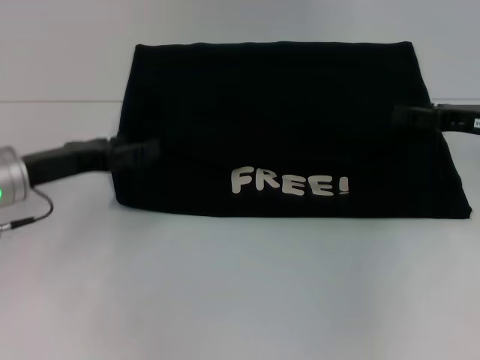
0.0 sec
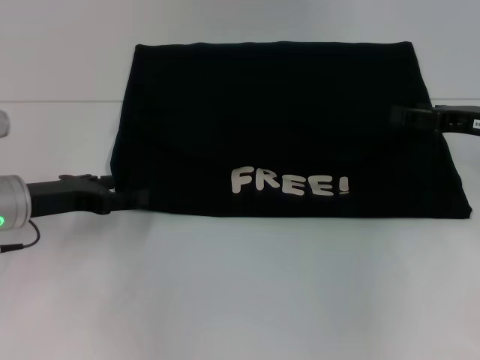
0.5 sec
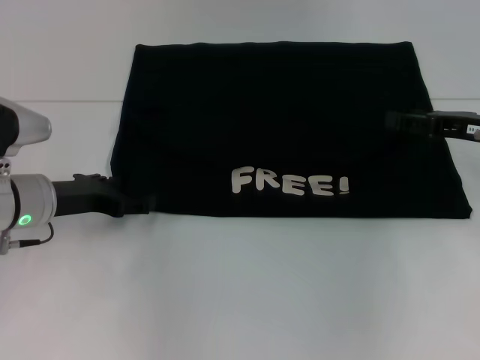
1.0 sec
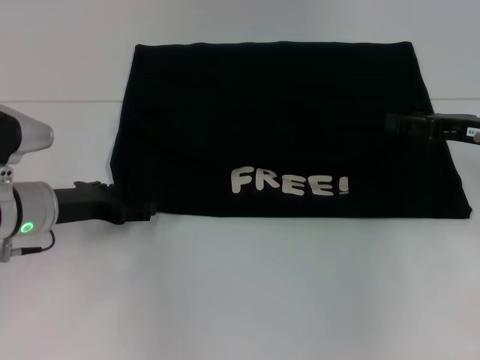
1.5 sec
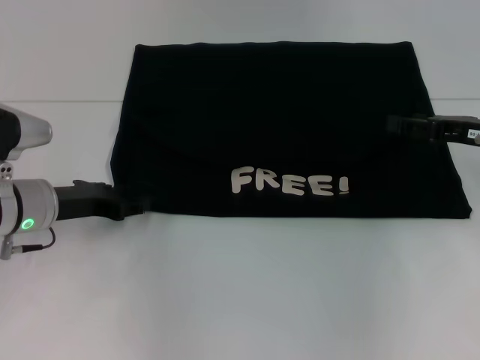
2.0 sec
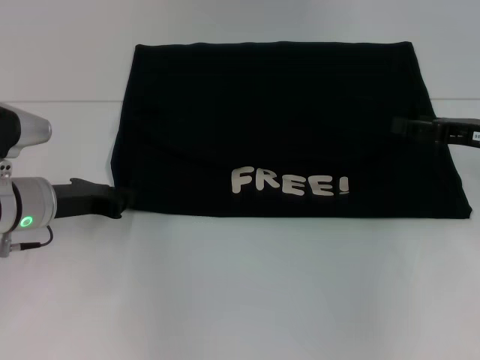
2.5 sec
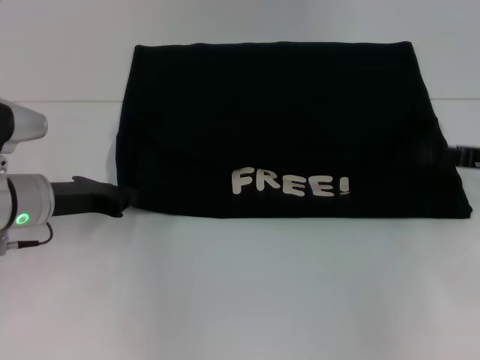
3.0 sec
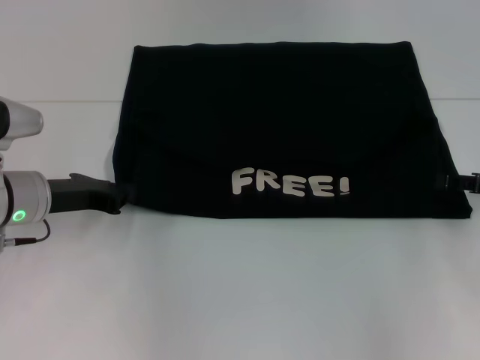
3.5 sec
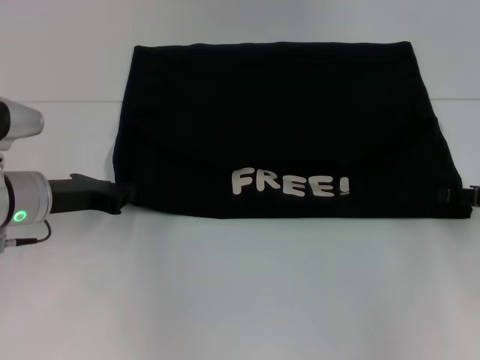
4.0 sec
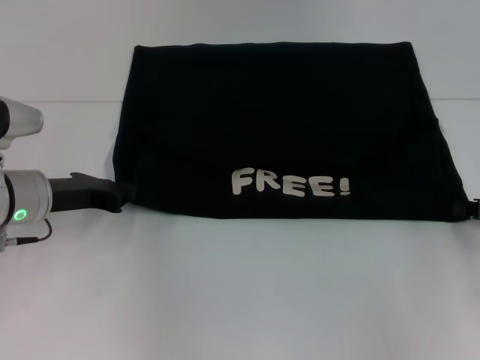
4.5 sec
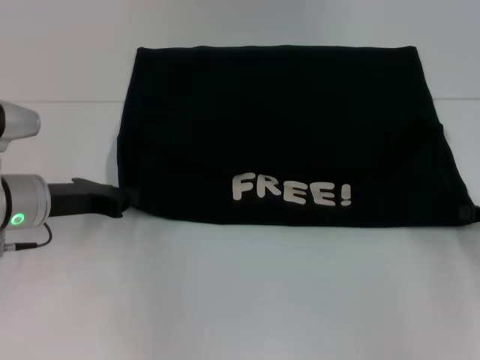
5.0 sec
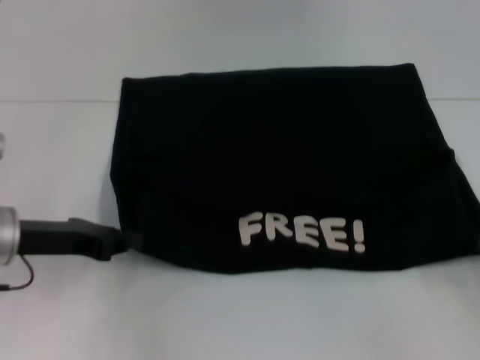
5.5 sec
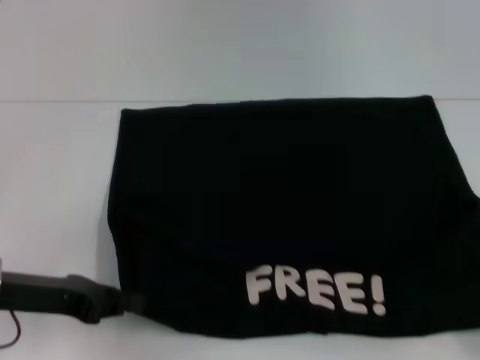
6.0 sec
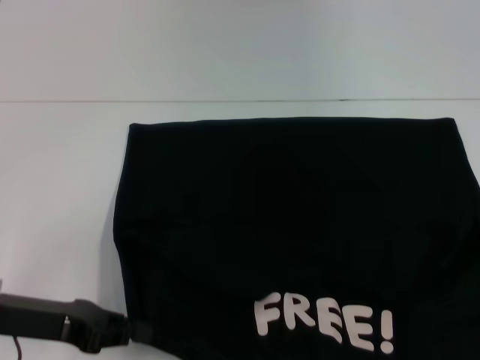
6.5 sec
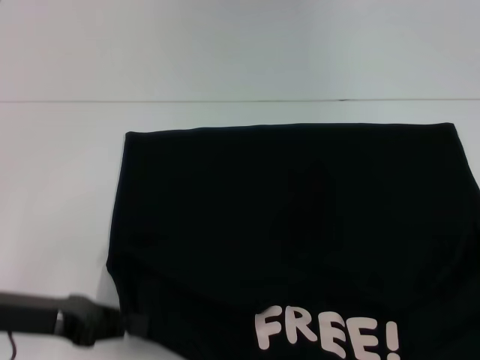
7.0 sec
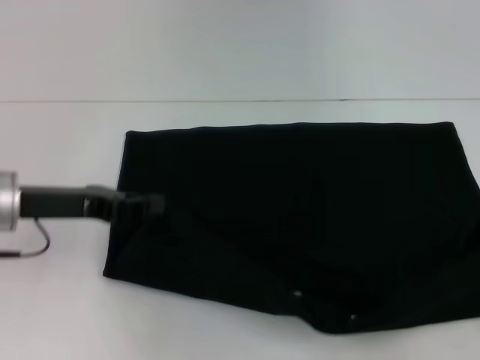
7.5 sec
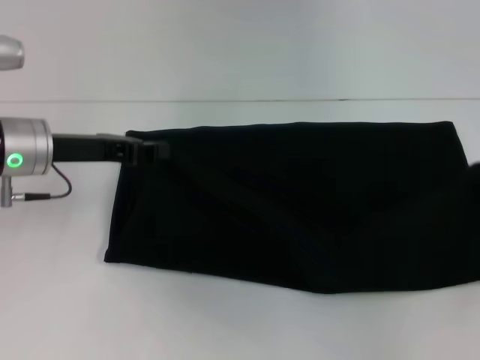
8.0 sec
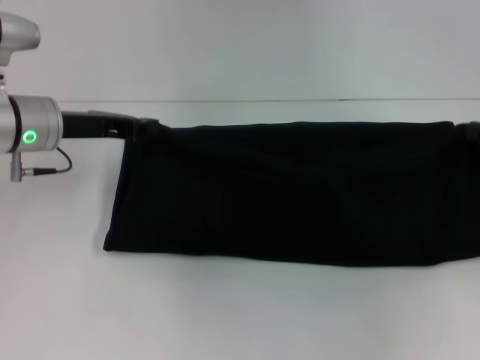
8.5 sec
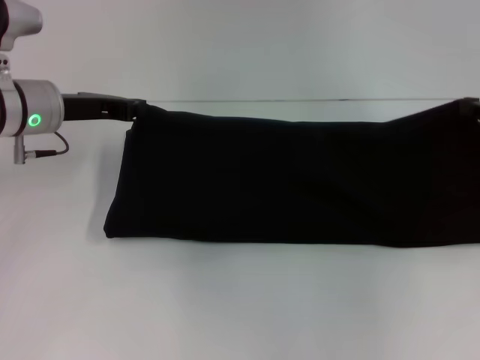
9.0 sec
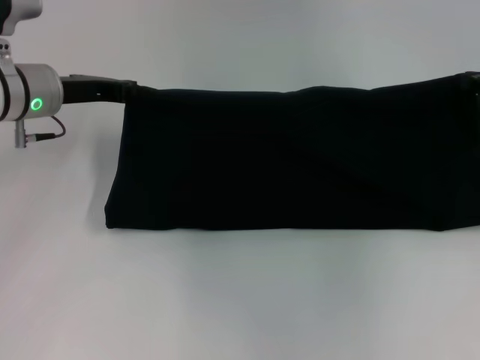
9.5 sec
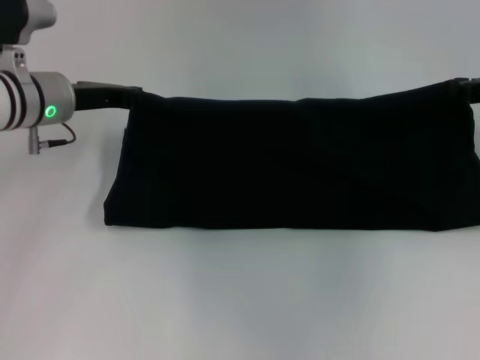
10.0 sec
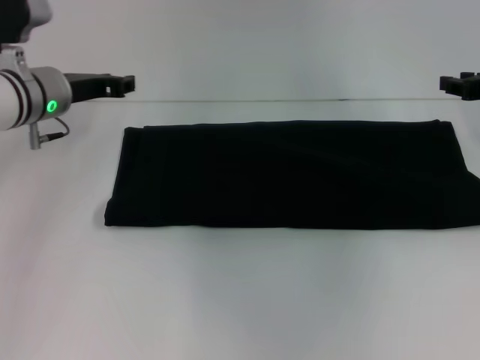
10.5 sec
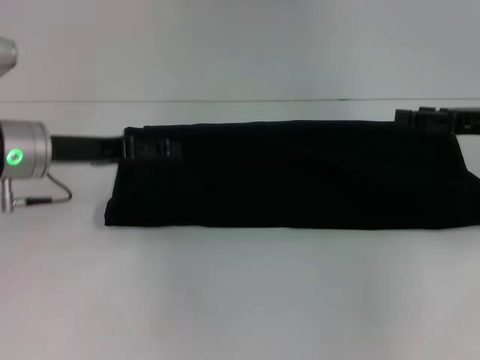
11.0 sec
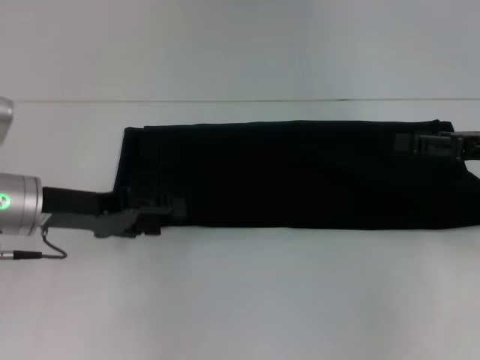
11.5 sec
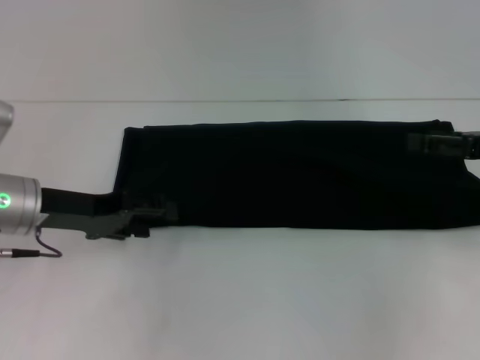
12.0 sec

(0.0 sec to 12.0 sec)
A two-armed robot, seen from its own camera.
Step, 0.0 sec - 6.5 sec: Pull the clothes with your left hand.
Step, 0.0 sec - 6.5 sec: Pull the clothes with your right hand.
Step, 7.0 sec - 10.0 sec: Fold the clothes with your right hand.
2.0 sec - 4.0 sec: The right gripper shifts by some 5 cm. Meanwhile the left gripper closes.
4.0 sec - 6.0 sec: The left gripper travels backward by about 10 cm, while the right gripper is displaced backward by about 15 cm, and closes up.
6.0 sec - 8.0 sec: The left gripper is displaced forward by about 10 cm. Meanwhile the right gripper shifts about 15 cm forward and upward.
8.0 sec - 10.0 sec: The left gripper shifts some 5 cm forward. The right gripper moves forward and to the left, approximately 15 cm.
10.0 sec - 12.0 sec: The grippers both shift backward by about 10 cm. The right gripper opens up; the left gripper opens its fingers.

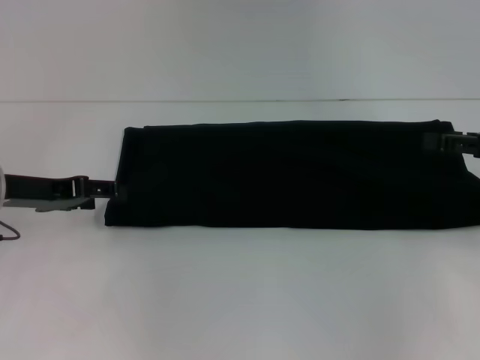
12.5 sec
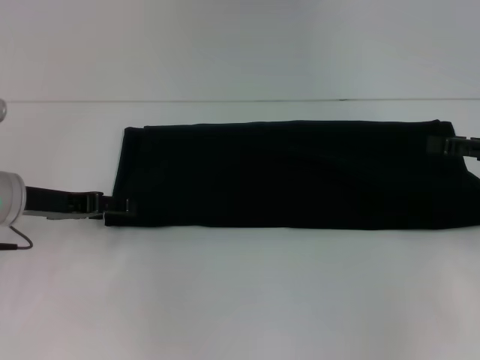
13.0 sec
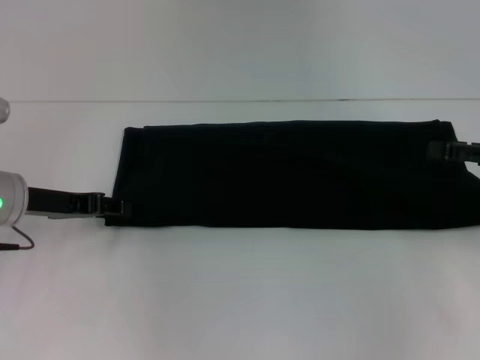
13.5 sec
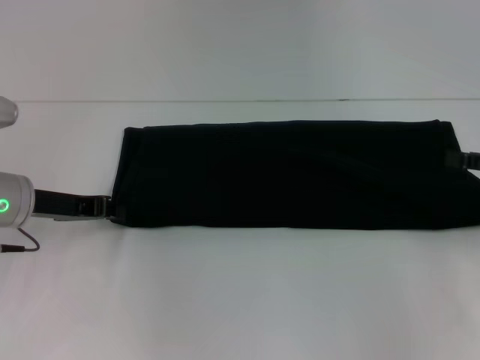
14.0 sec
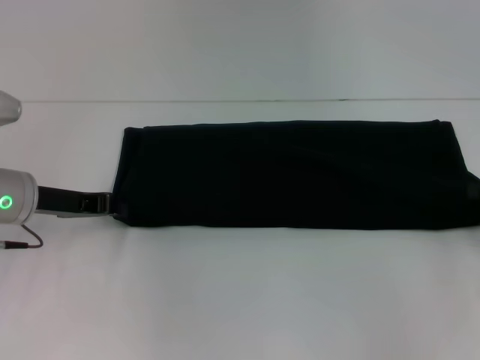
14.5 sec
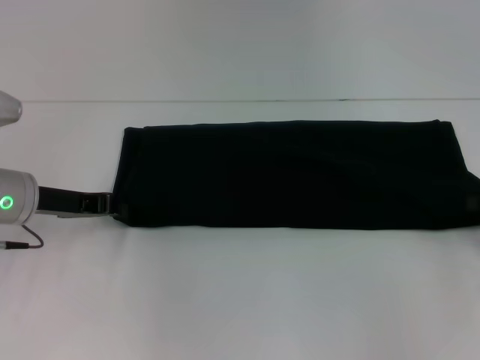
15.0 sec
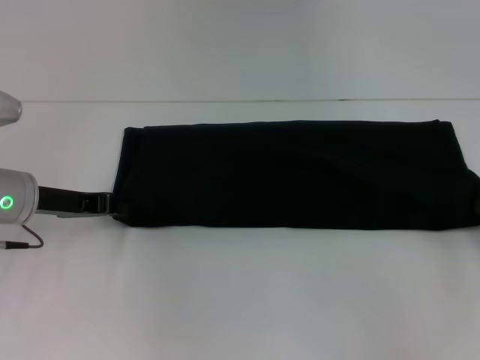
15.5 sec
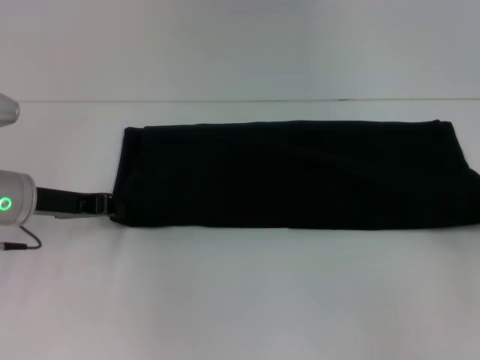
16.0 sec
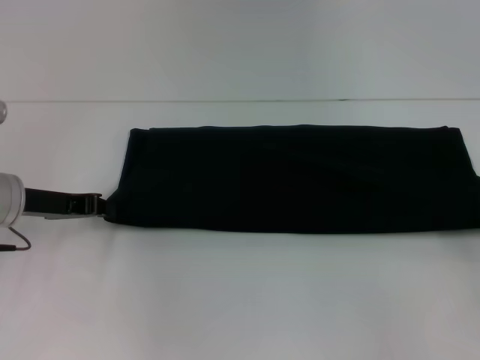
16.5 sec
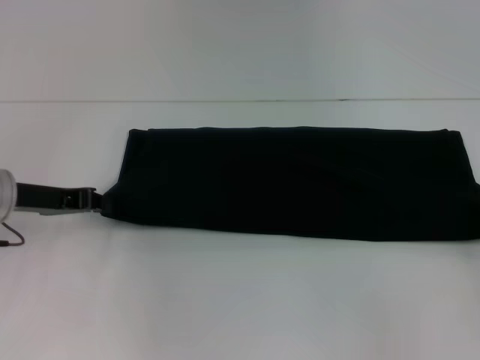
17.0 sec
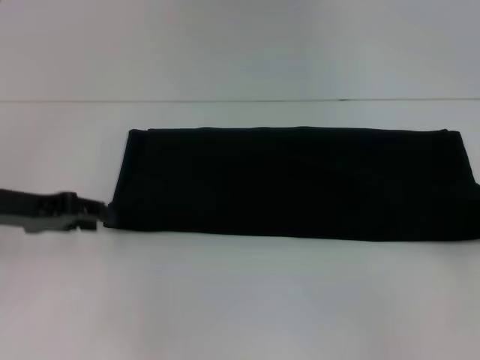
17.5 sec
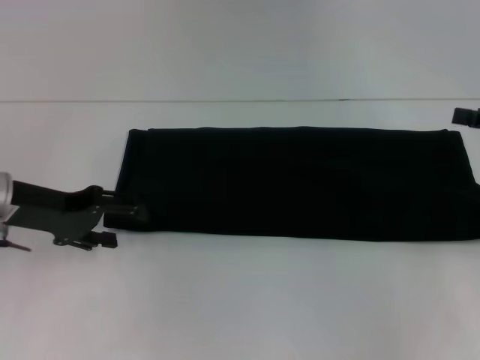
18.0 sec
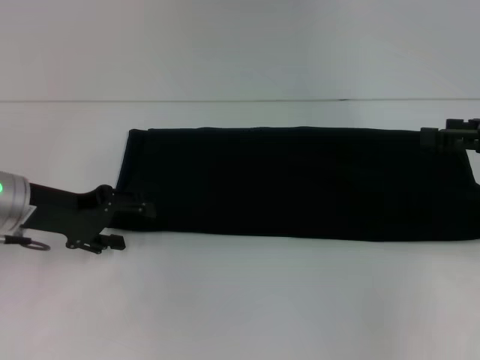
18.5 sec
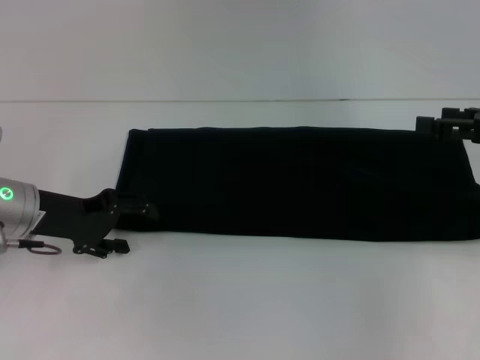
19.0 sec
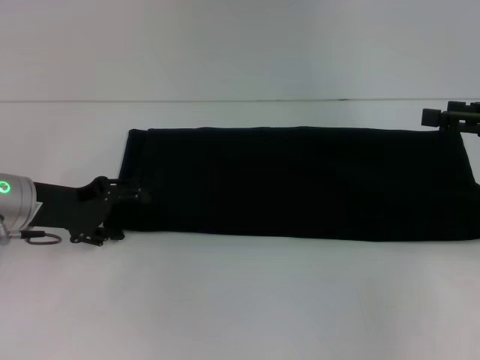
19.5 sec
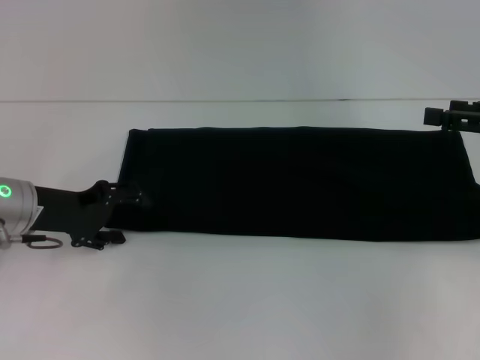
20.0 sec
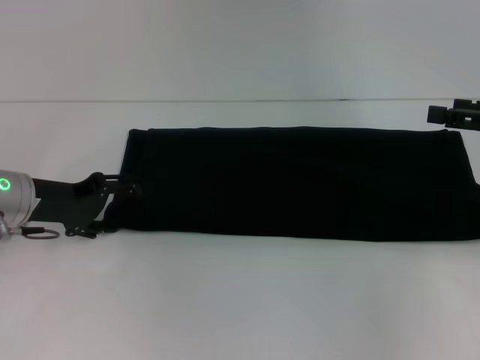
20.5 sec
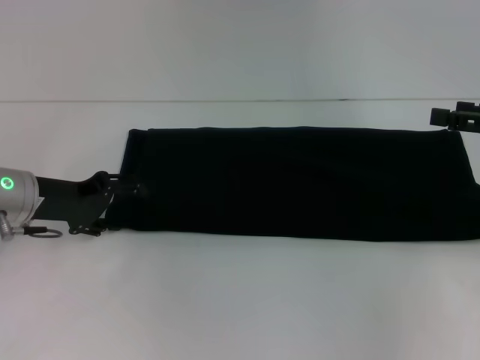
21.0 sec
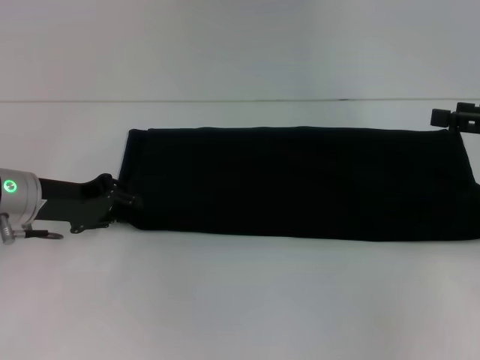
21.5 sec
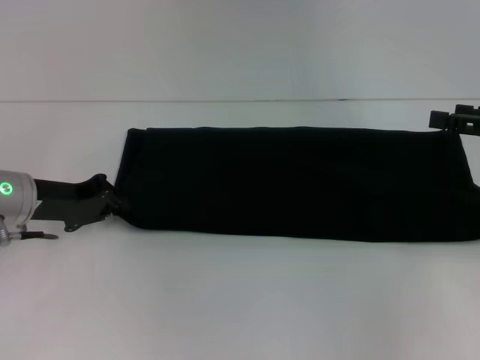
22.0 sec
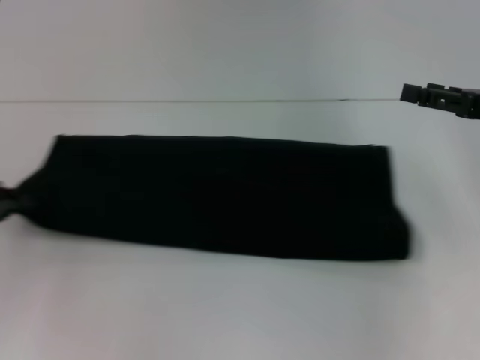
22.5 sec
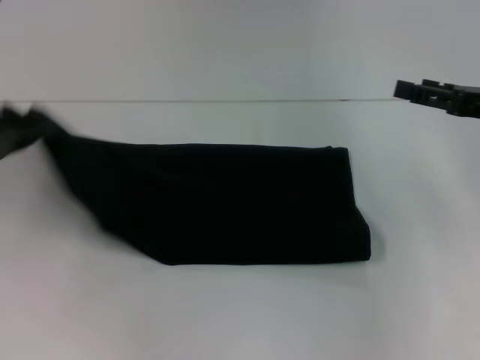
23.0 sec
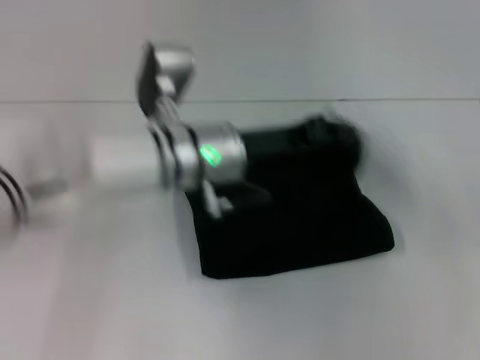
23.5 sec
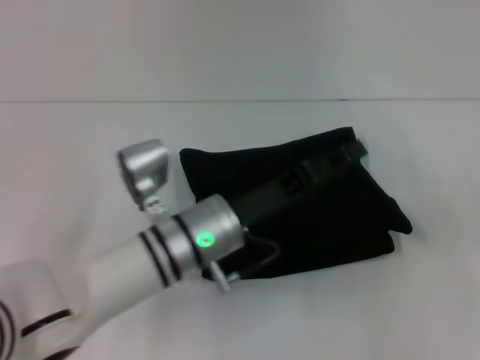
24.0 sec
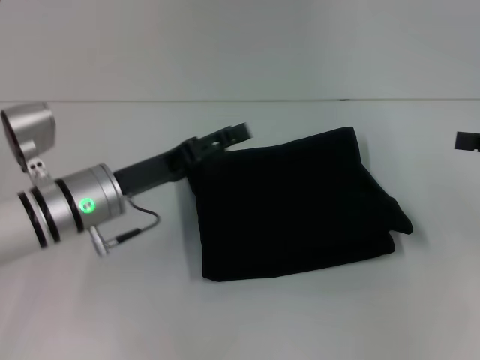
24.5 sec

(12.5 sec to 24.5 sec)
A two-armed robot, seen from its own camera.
Step, 12.5 sec - 23.5 sec: Fold the clothes with your left hand.
12.5 sec - 14.5 sec: The left gripper closes its fingers.
14.5 sec - 16.5 sec: The right gripper closes up.
16.5 sec - 18.5 sec: The right gripper is displaced upward, to the left and forward by approximately 10 cm, and opens its fingers. The left gripper opens its fingers.
18.5 sec - 20.5 sec: The grippers stay close to where they were, moving slightly.
20.5 sec - 22.5 sec: The left gripper is displaced to the left and backward by about 10 cm, and closes up.
22.5 sec - 24.5 sec: The right gripper moves to the right, some 5 cm. Meanwhile the left gripper shifts approximately 20 cm to the right, and opens its fingers.

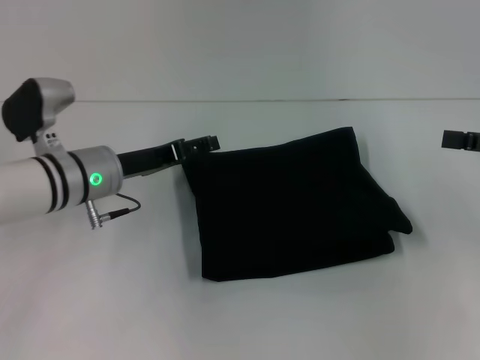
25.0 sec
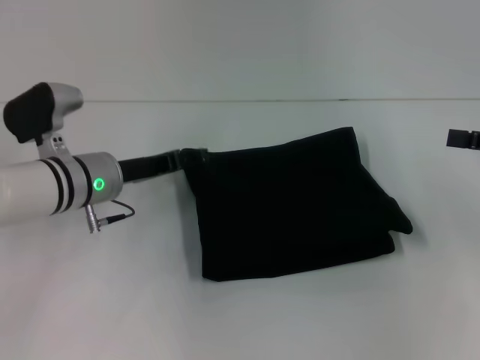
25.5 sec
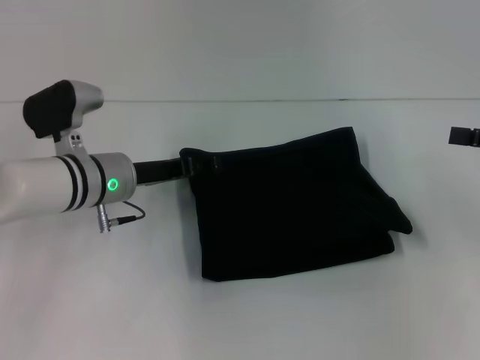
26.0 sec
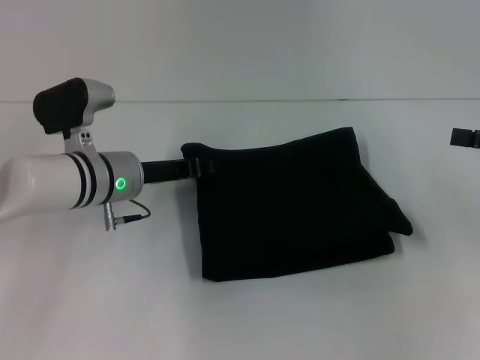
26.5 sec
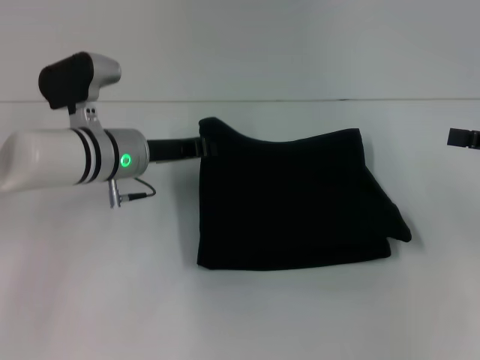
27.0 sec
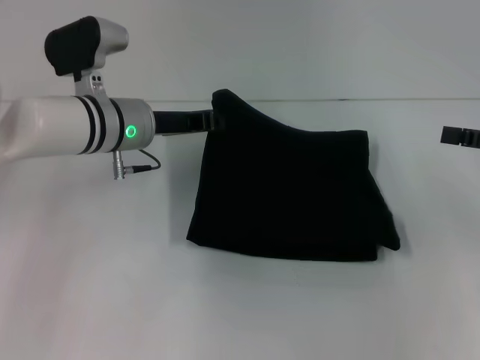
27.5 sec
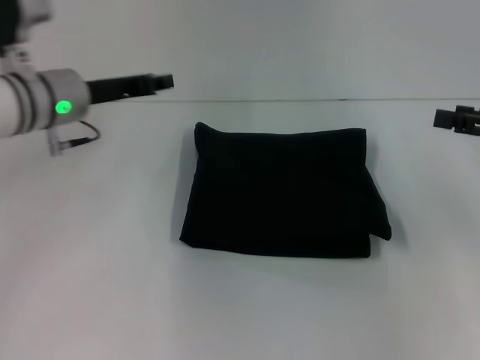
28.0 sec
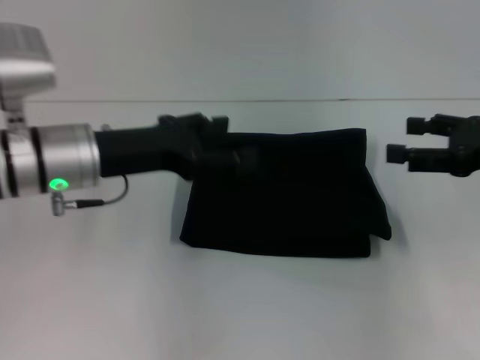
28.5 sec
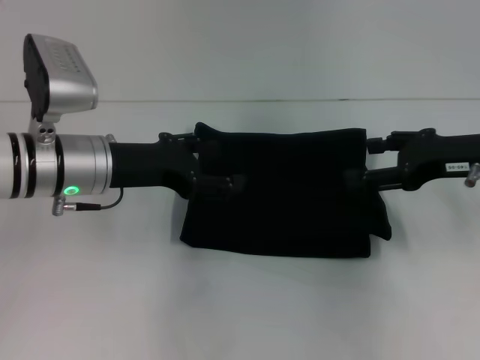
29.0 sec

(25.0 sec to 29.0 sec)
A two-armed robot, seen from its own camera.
25.0 sec - 27.0 sec: The left gripper closes its fingers.
27.0 sec - 29.0 sec: The left gripper shifts by about 5 cm, and opens up; the right gripper is displaced to the left by some 10 cm.
